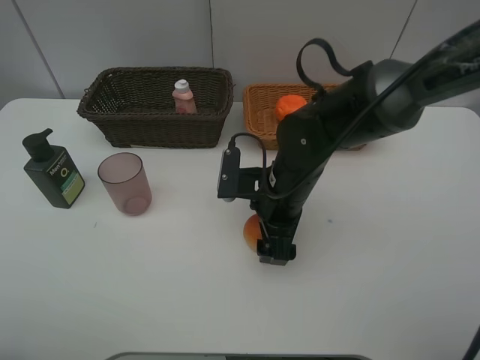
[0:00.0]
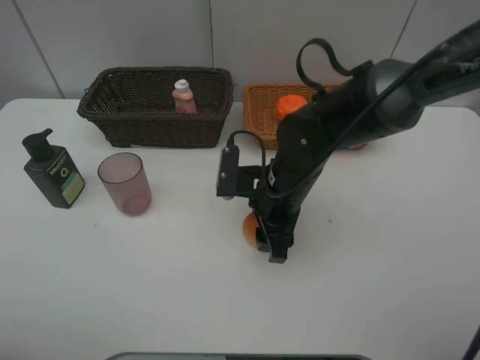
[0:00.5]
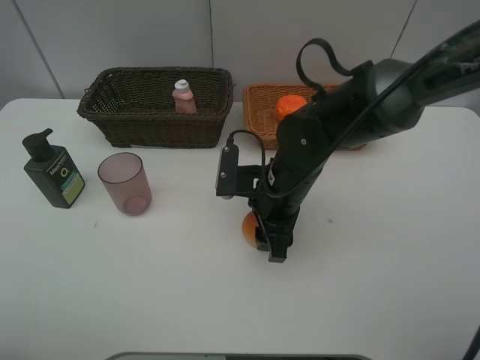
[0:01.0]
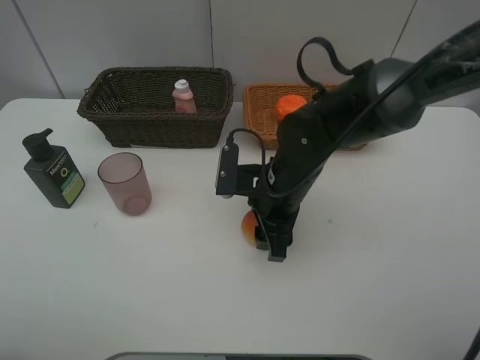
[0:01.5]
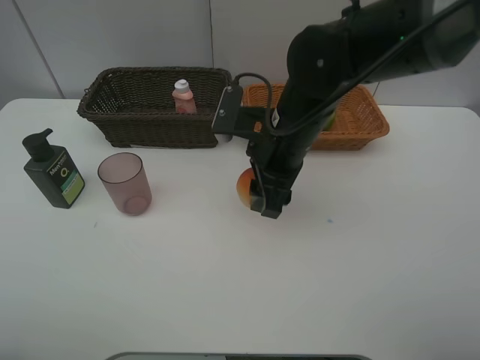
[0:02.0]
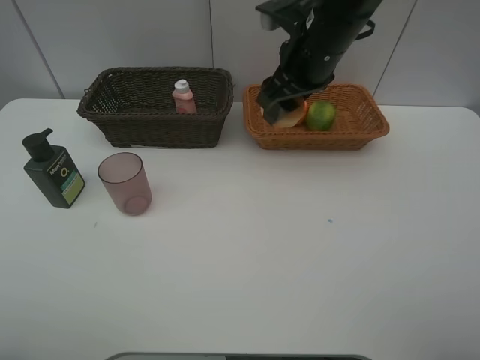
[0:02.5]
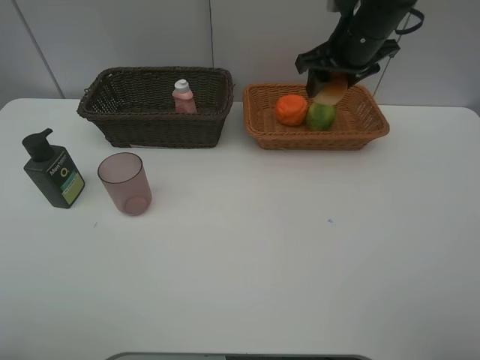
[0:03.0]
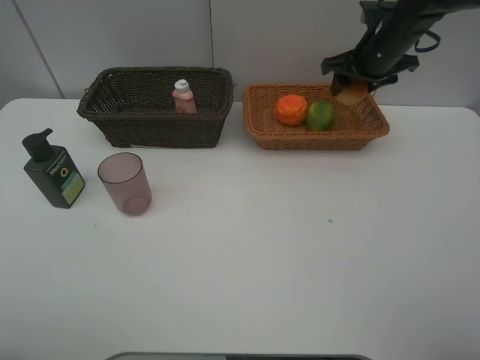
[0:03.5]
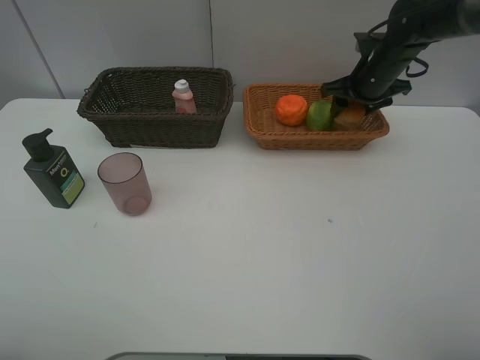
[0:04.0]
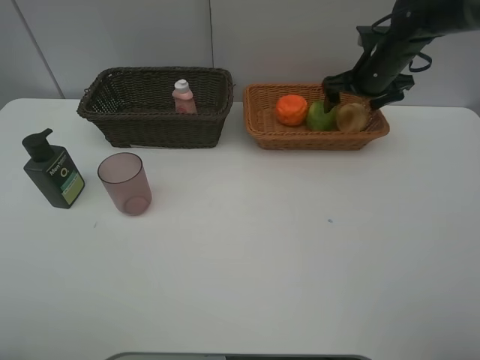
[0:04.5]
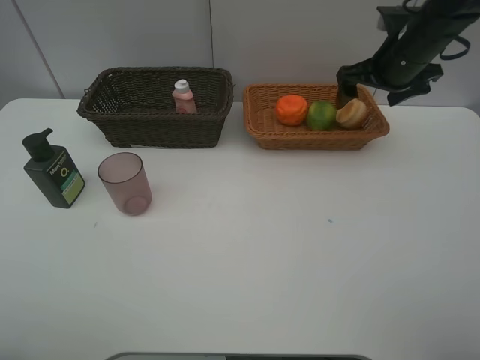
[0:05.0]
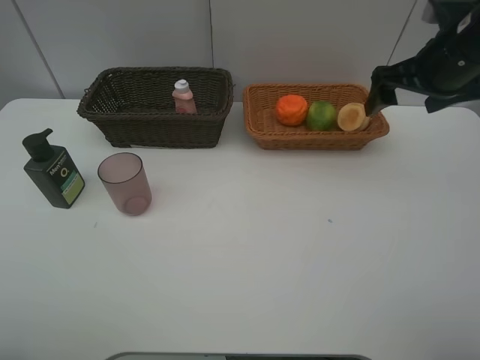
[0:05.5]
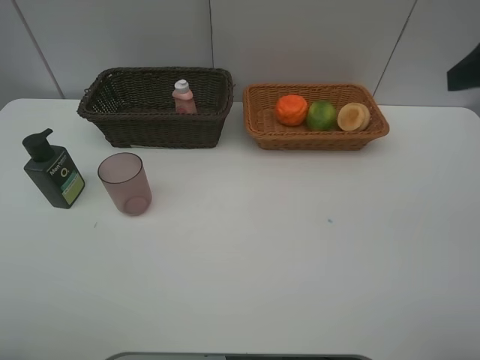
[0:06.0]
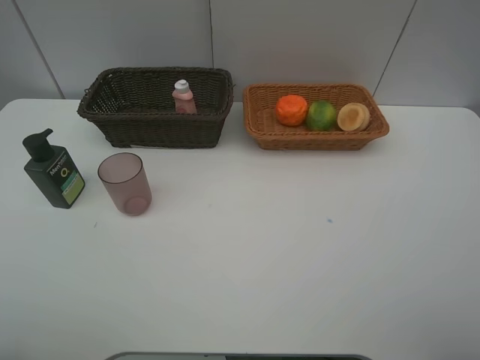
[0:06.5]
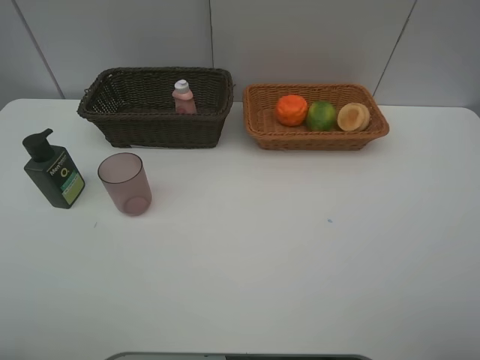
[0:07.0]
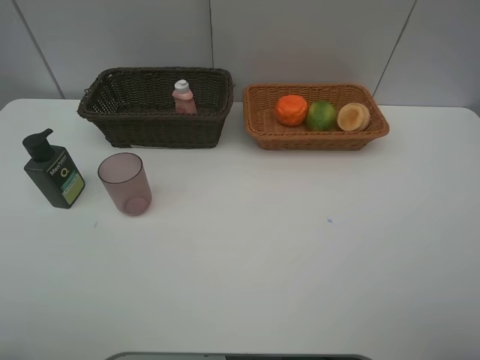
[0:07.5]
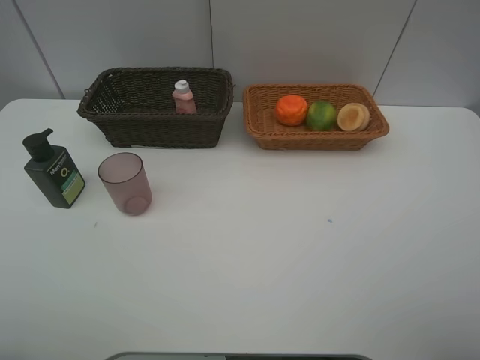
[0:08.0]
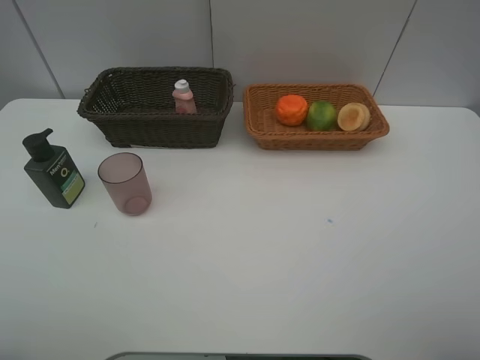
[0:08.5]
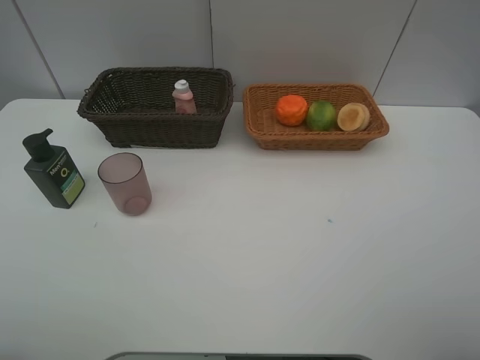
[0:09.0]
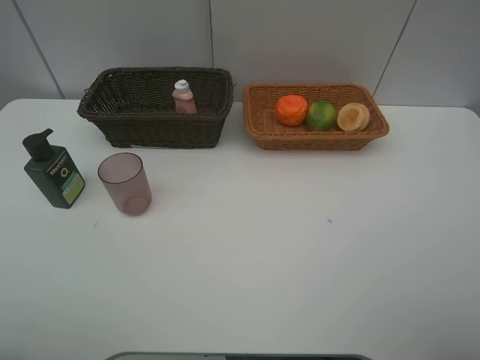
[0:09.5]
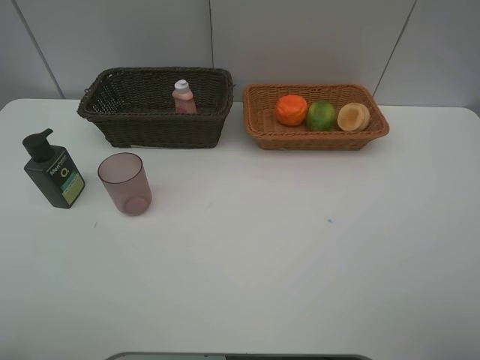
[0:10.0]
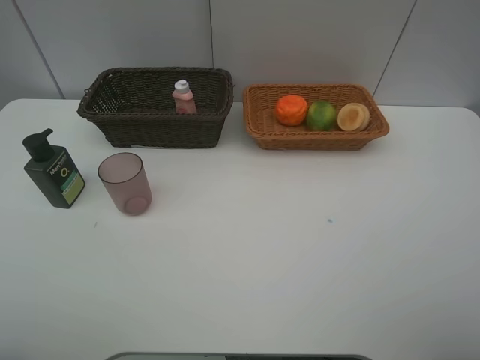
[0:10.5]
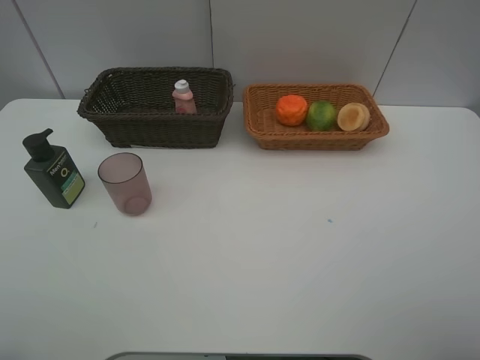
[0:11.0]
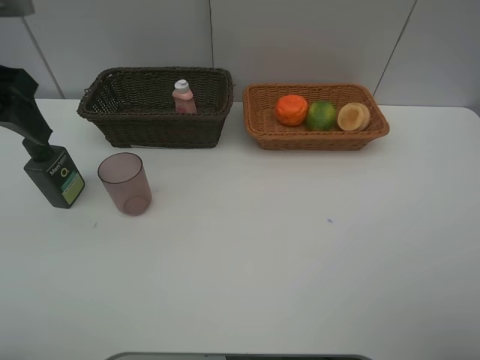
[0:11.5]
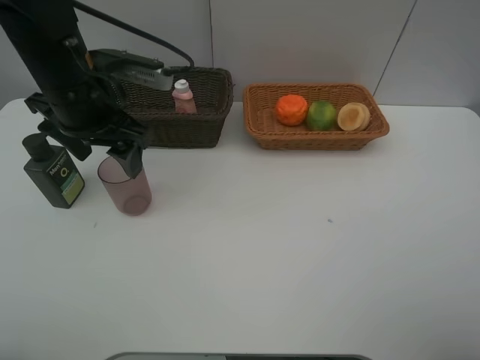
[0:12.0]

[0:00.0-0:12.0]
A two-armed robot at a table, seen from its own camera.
Task of the whole recording: place multiple objects separately in different baskets.
0:00.0 to 0:02.0: The right gripper is displaced upward by about 10 cm, and closes up.
0:02.0 to 0:04.0: The right gripper shifts about 25 cm to the right and forward.
0:04.0 to 0:06.0: The right gripper shifts approximately 35 cm backward and upward, and opens.
0:10.0 to 0:12.0: The left gripper goes about 30 cm forward and to the right.

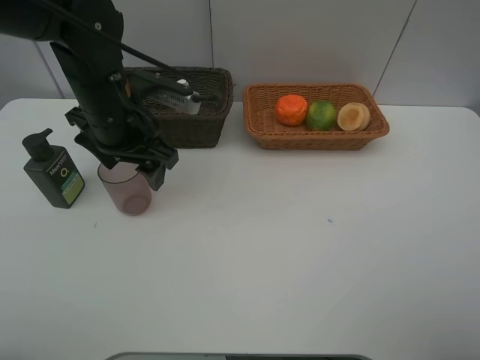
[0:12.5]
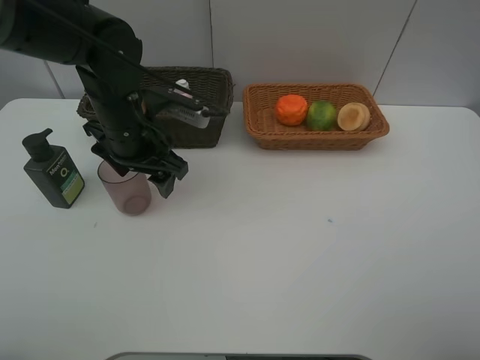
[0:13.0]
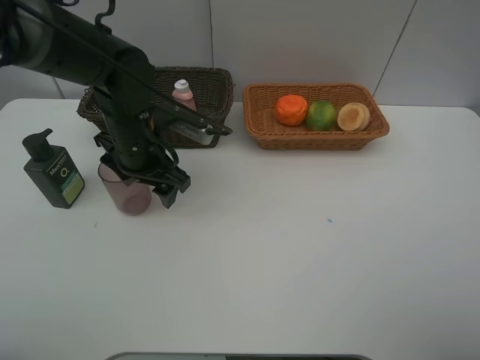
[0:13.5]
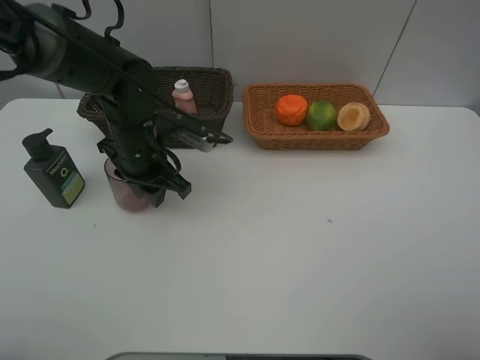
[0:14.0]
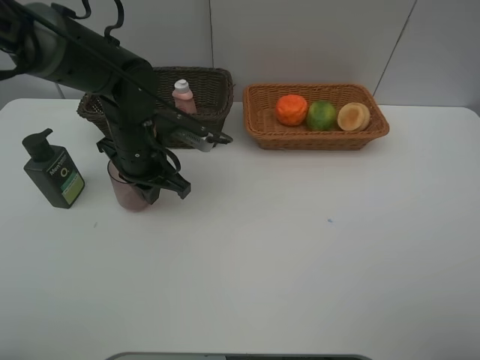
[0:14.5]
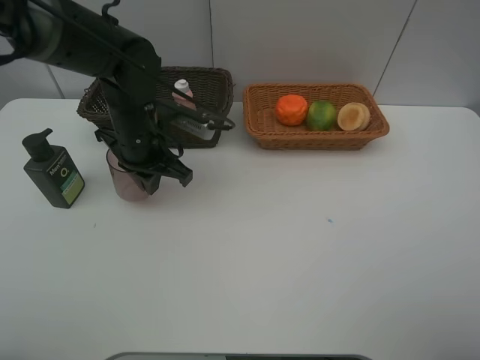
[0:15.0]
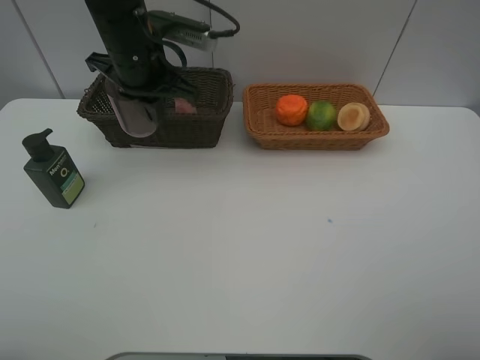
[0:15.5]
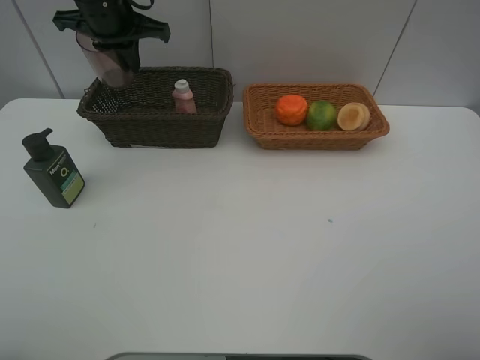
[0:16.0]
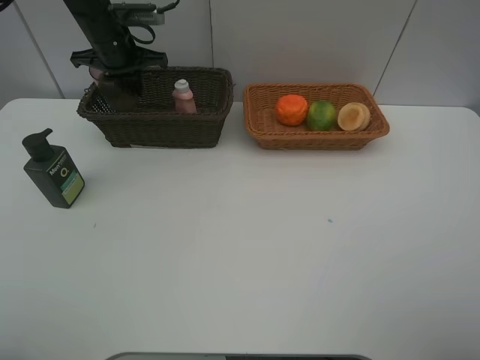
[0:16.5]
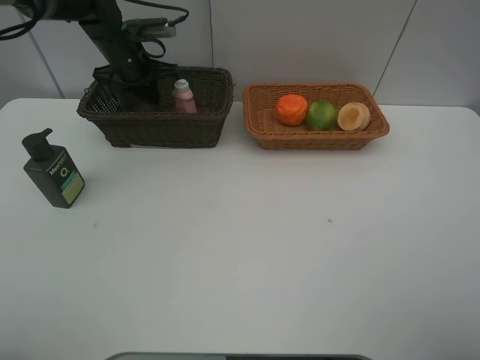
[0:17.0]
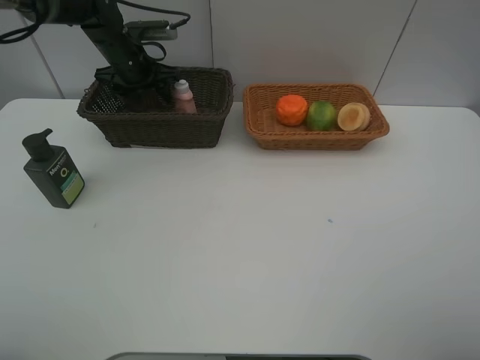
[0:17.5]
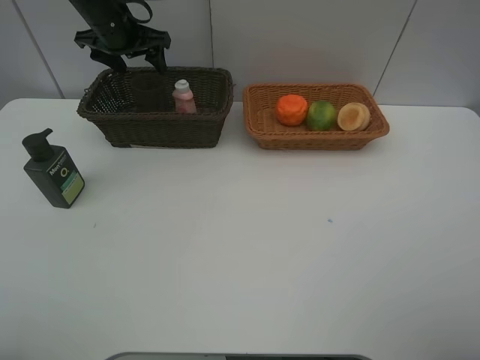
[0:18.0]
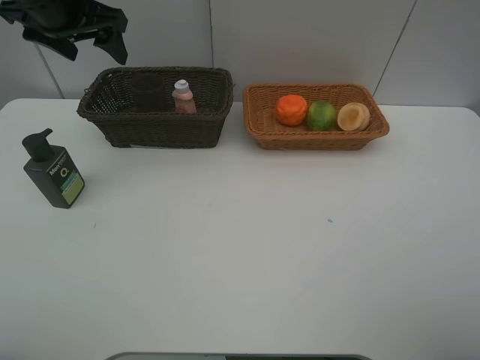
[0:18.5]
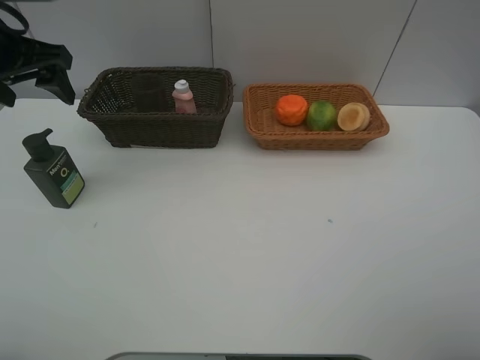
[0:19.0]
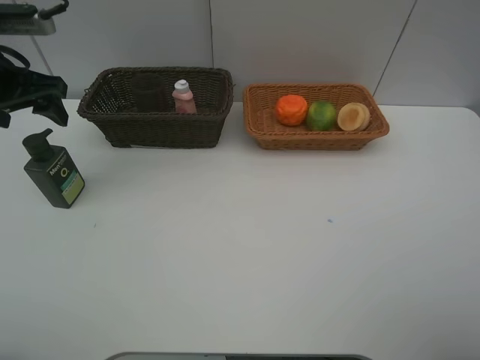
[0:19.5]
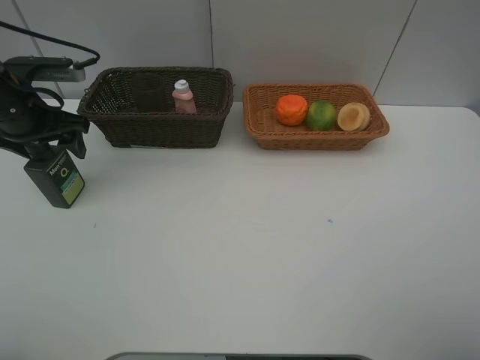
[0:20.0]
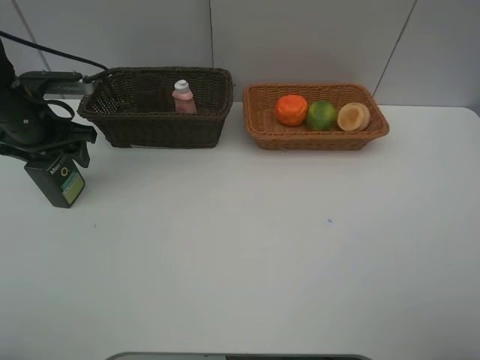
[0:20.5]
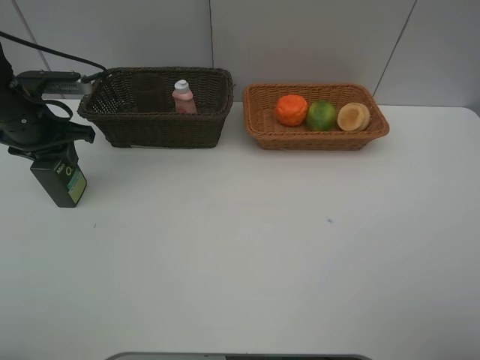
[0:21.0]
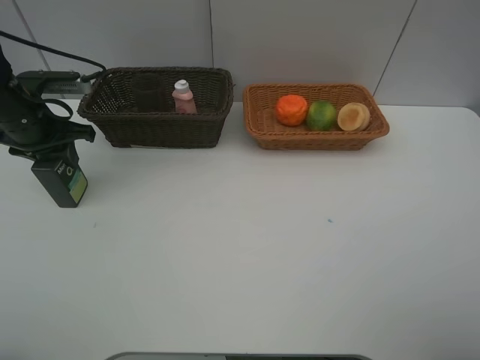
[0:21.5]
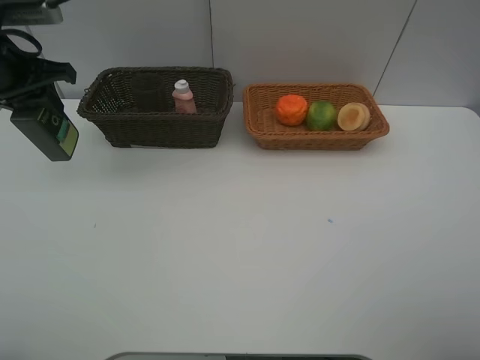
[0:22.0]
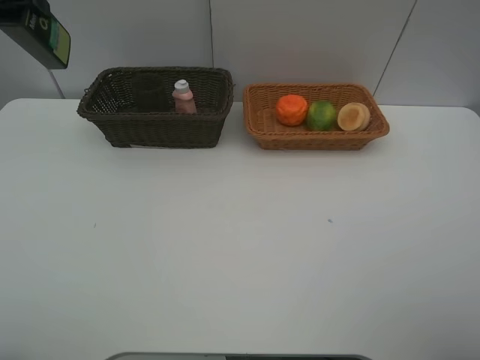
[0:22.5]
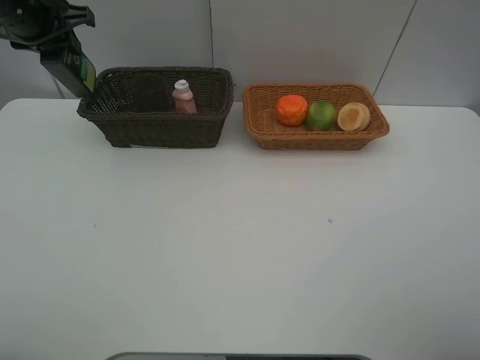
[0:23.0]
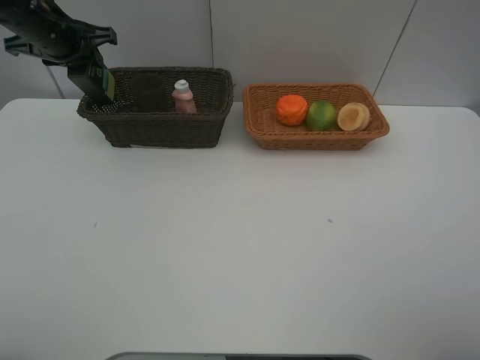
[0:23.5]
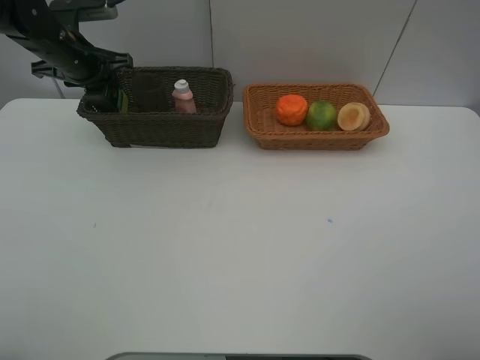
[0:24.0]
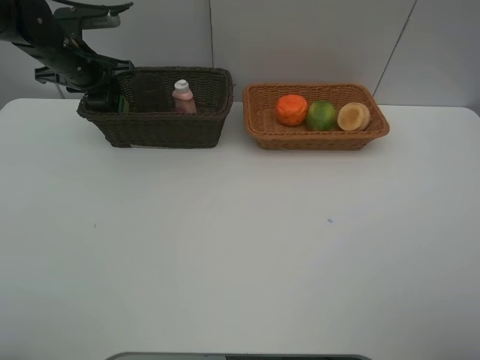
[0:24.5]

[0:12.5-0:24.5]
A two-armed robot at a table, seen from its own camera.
Task of the whole recording: place multiple objects separately in different baskets.
0:12.5 to 0:14.5: The left gripper is displaced downward by roughly 5 cm, and closes.
0:14.5 to 0:16.5: The left gripper goes approximately 20 cm forward, to the left and upward.
0:16.5 to 0:18.5: The left gripper shifts roughly 15 cm backward and upward, and opens its fingers.
0:18.5 to 0:20.5: The left gripper is displaced downward and to the left by some 15 cm.
0:20.5 to 0:22.5: The left gripper moves upward, approximately 20 cm.
0:22.5 to 0:24.5: The left gripper moves downward and forward, some 15 cm.

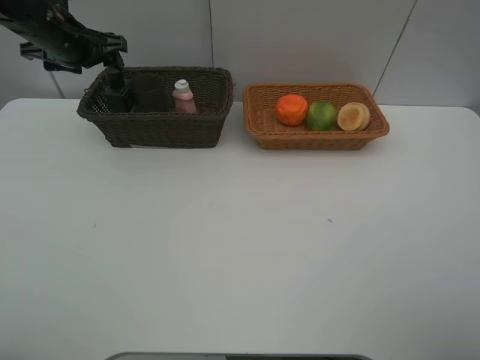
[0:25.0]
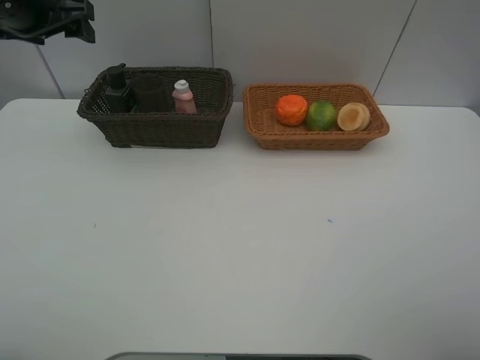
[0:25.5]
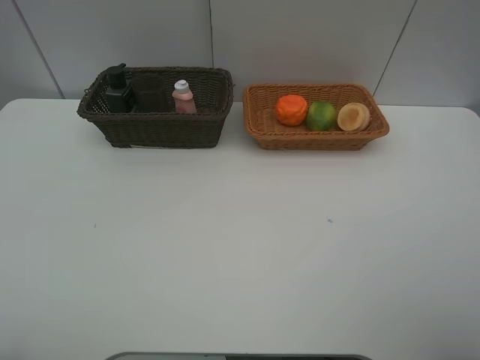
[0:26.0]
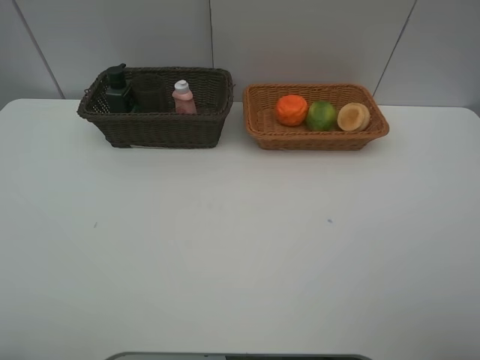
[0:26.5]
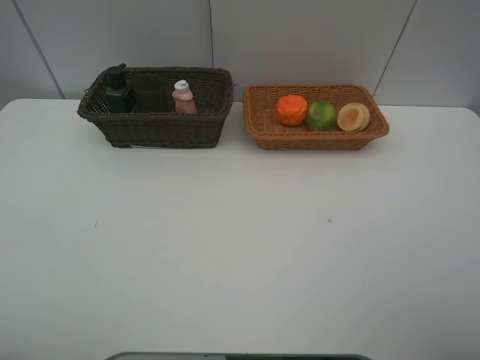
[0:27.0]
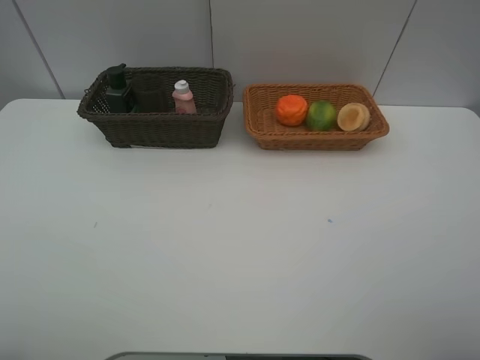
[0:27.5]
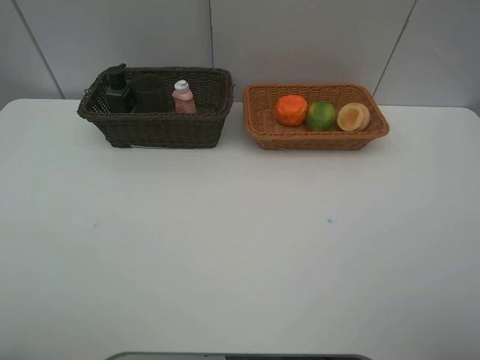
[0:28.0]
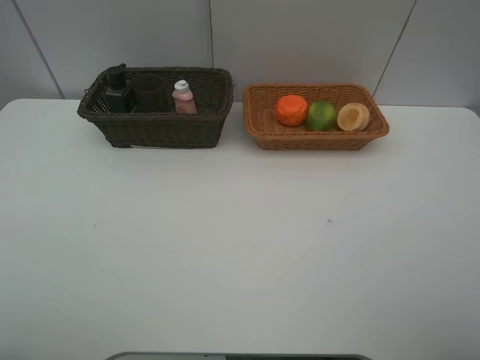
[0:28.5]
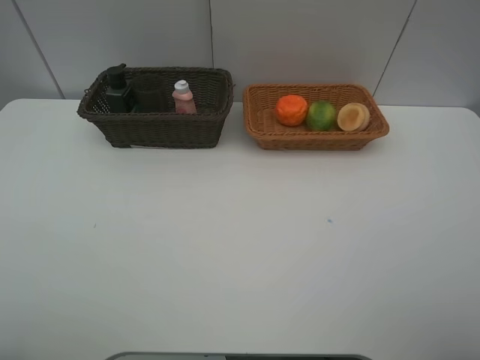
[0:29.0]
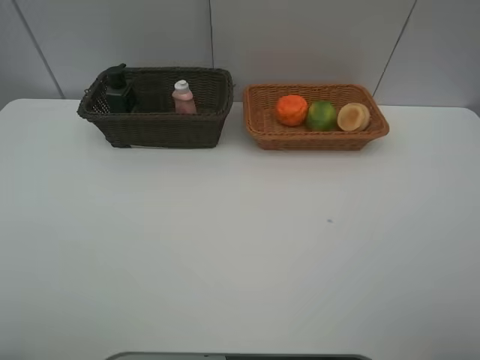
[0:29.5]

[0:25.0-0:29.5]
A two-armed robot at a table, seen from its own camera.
Task of the whole recording: place multiple objects separately in different baskets.
0:25.0 to 0:27.0: The left gripper goes approximately 50 cm backward.
